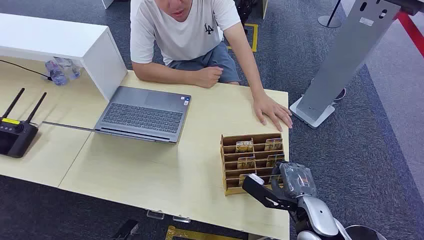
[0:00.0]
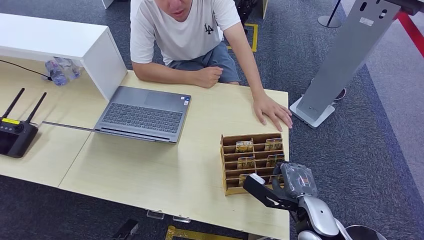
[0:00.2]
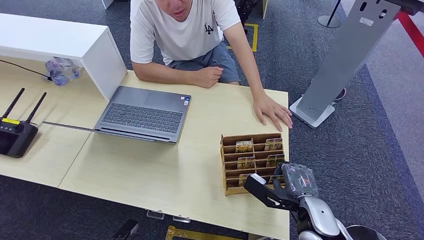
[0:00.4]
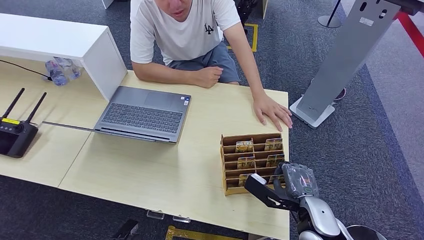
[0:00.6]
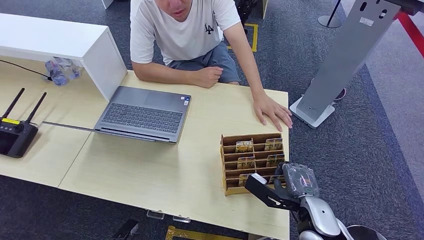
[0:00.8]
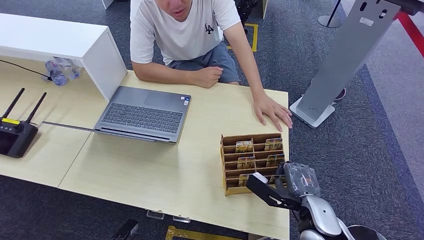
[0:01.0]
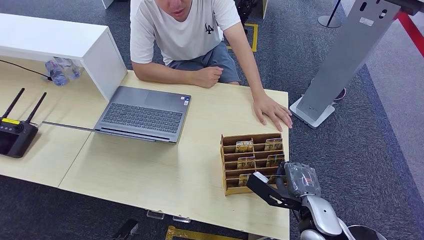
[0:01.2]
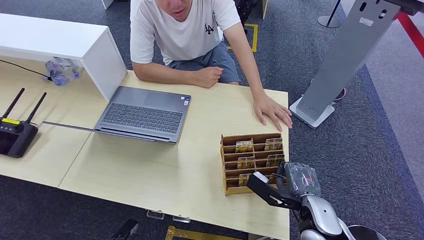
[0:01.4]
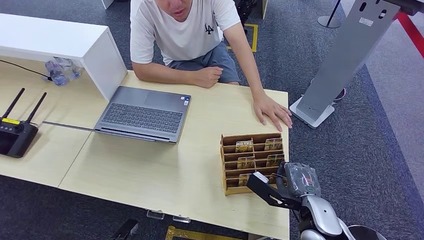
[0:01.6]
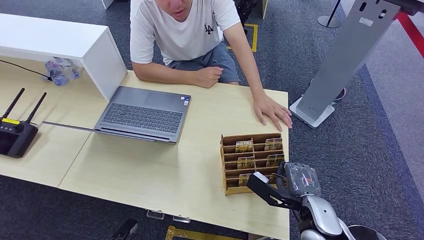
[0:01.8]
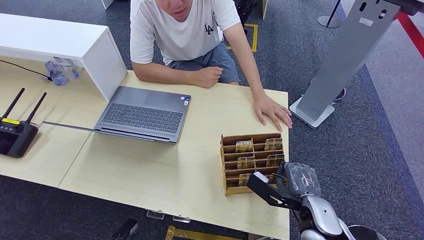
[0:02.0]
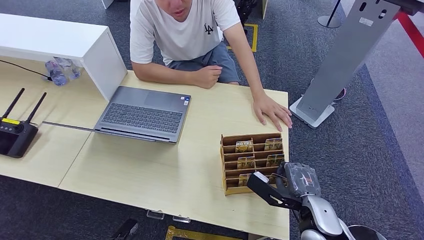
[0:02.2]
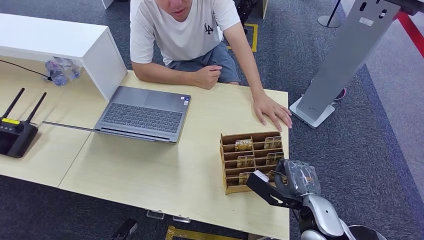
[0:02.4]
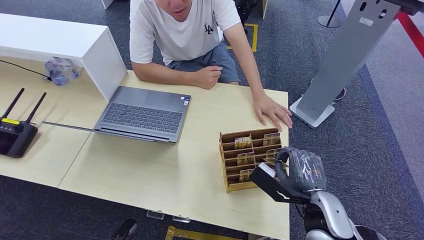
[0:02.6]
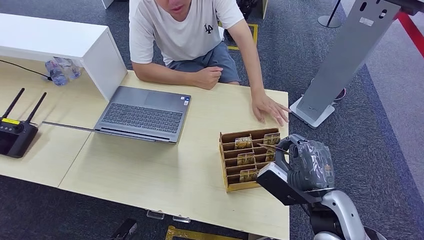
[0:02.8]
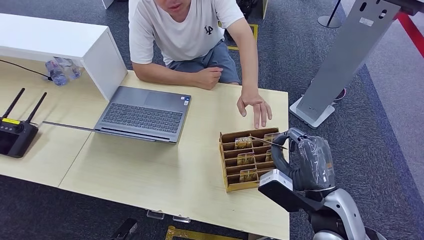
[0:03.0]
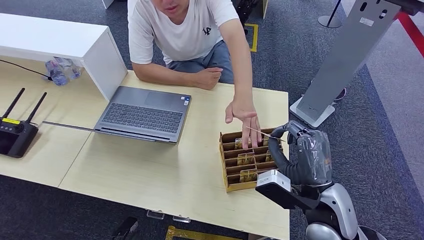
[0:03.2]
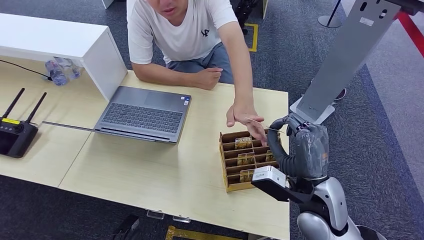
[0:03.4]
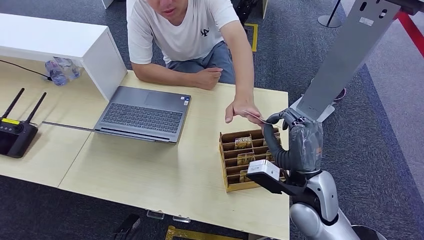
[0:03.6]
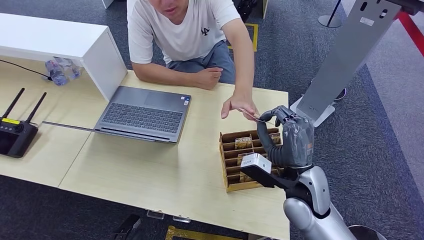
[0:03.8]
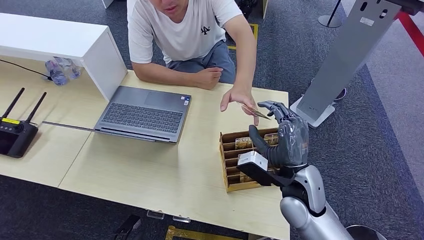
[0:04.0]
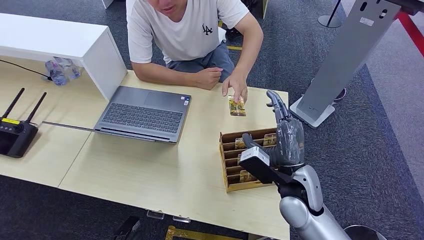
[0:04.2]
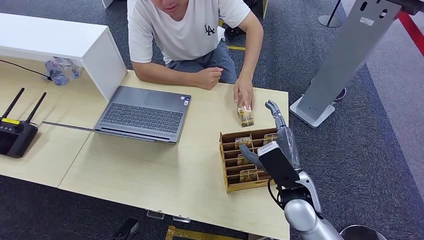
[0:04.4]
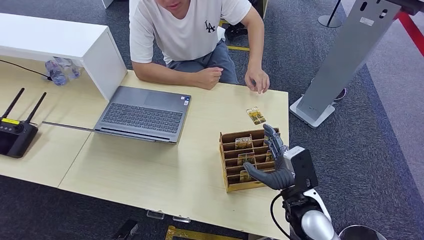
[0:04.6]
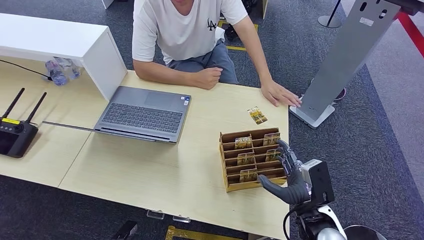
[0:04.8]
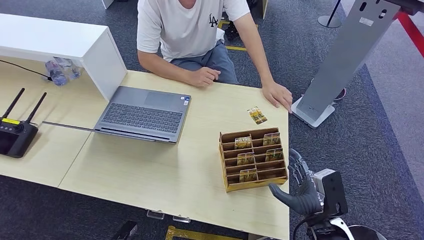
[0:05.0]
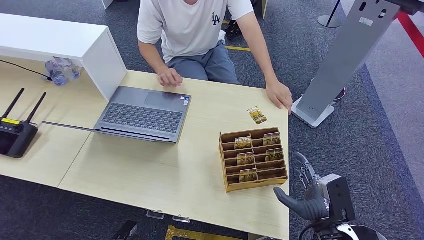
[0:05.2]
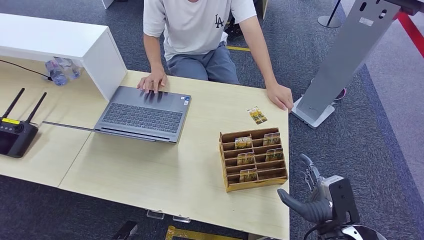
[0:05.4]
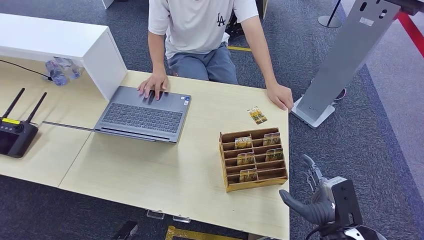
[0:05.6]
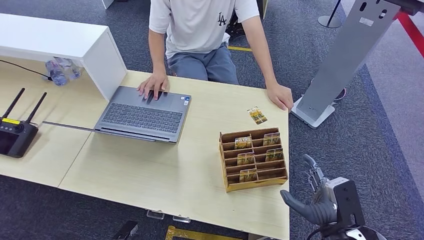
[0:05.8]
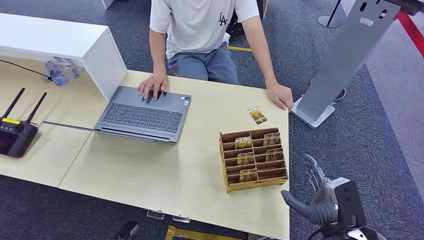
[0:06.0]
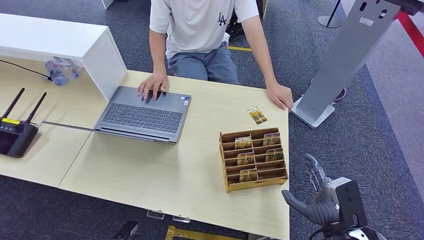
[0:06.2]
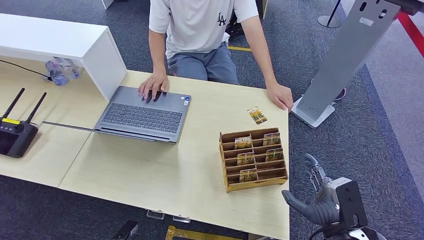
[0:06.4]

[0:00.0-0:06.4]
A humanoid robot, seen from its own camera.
Step, 0:00.0 to 0:02.8: Pick up the key card from the card box.
Step, 0:03.0 to 0:06.4: Hand the key card to the target.
0:01.6 to 0:03.2: The right hand travels upward by approximately 10 cm.
0:03.2 to 0:04.8: The right hand is displaced downward by approximately 10 cm.
0:04.8 to 0:06.4: The right hand goes approximately 5 cm to the right.
